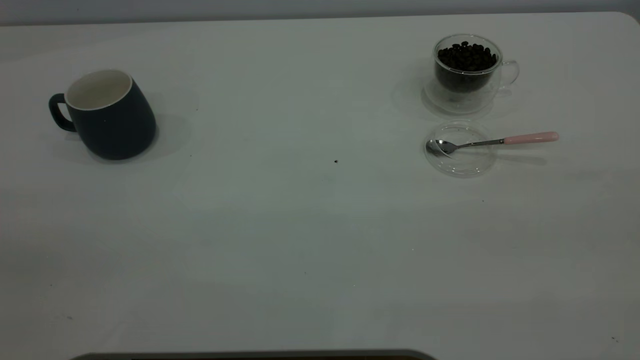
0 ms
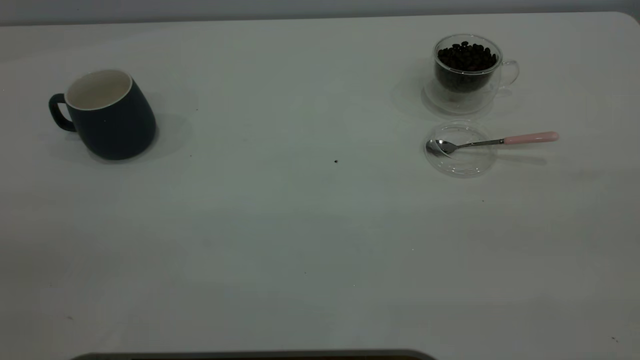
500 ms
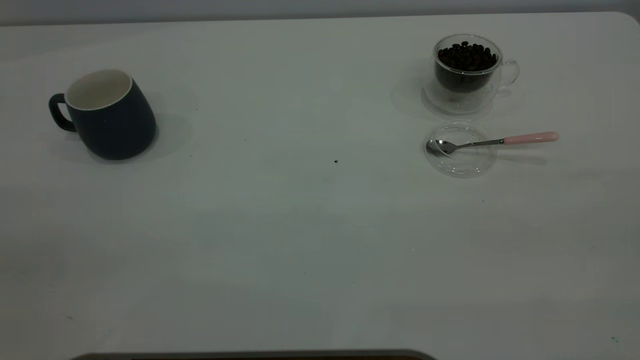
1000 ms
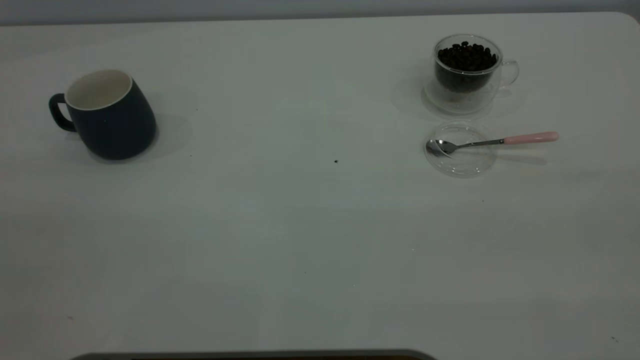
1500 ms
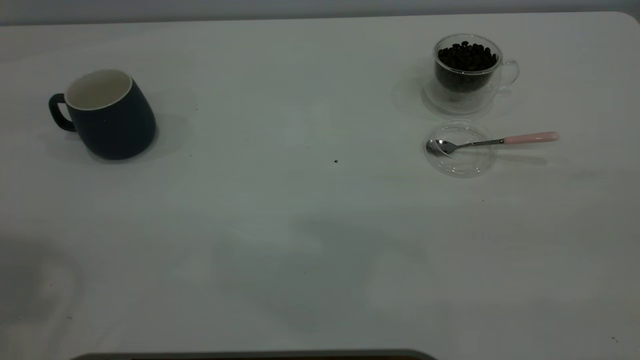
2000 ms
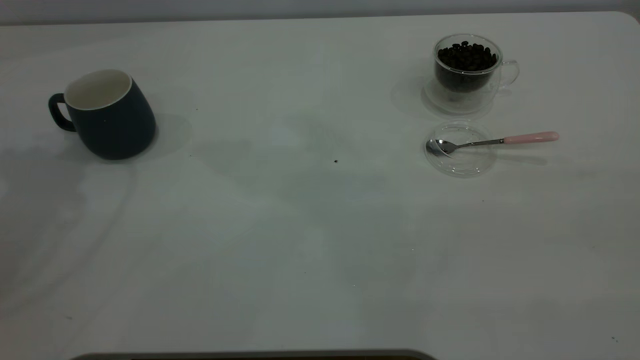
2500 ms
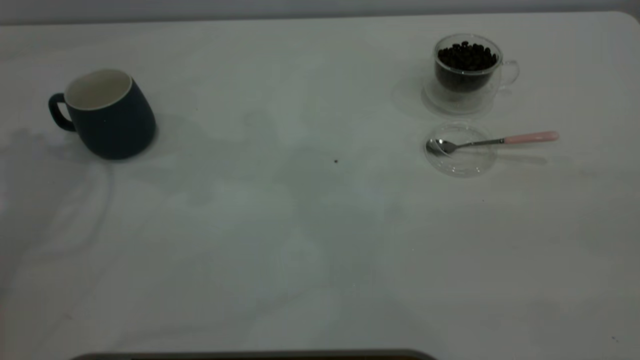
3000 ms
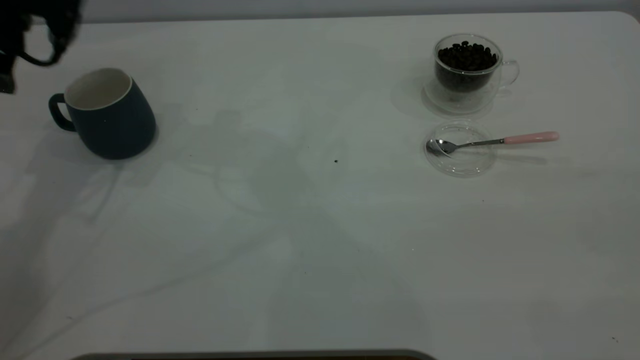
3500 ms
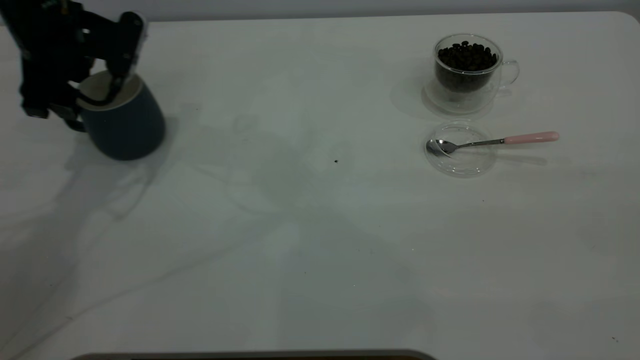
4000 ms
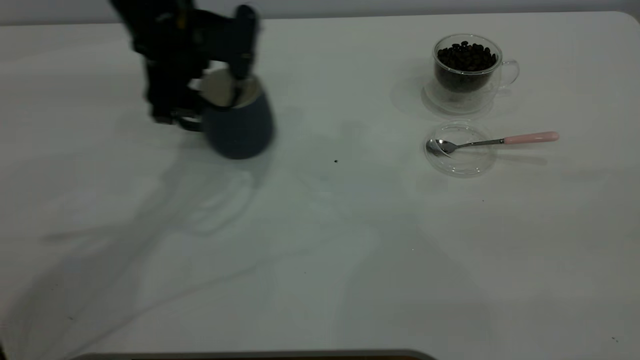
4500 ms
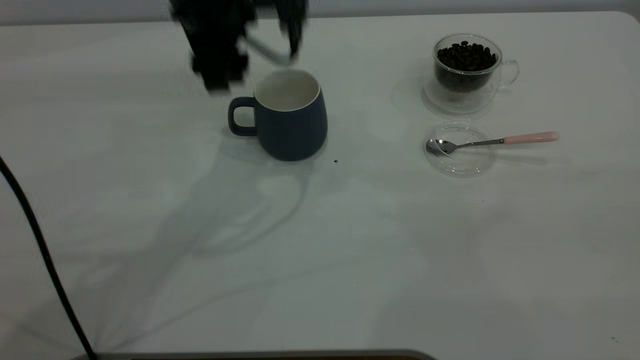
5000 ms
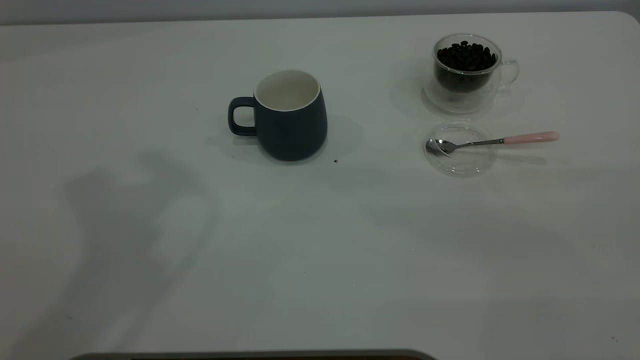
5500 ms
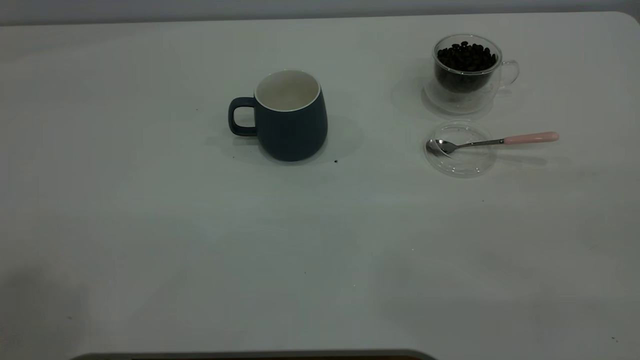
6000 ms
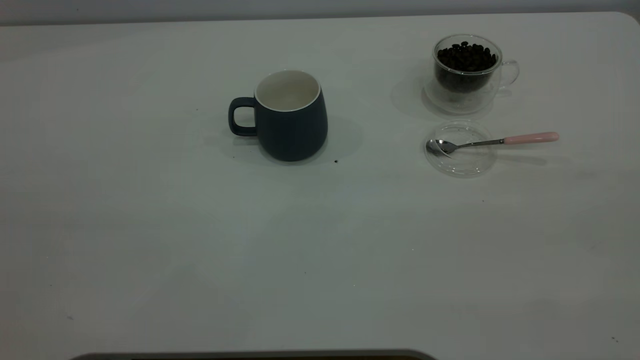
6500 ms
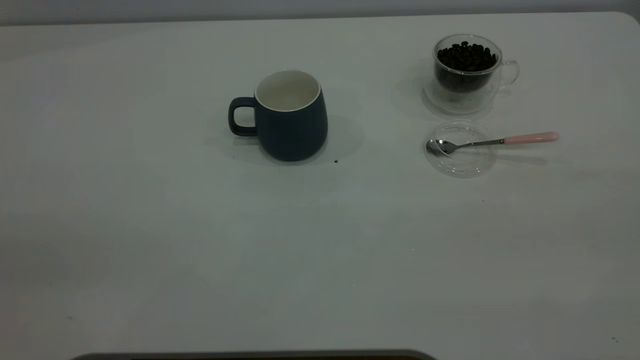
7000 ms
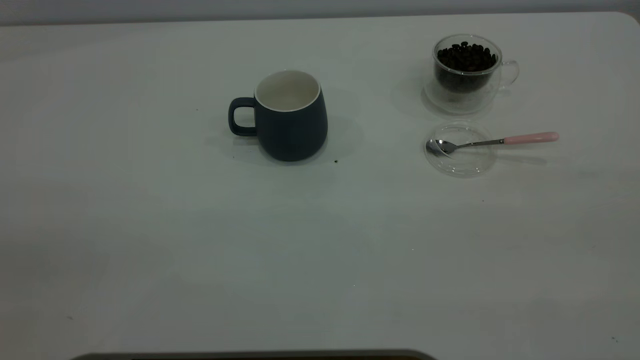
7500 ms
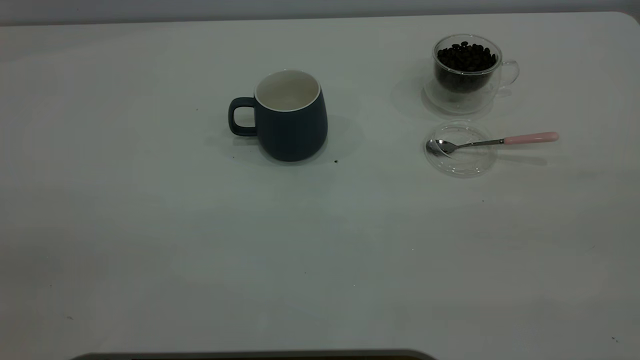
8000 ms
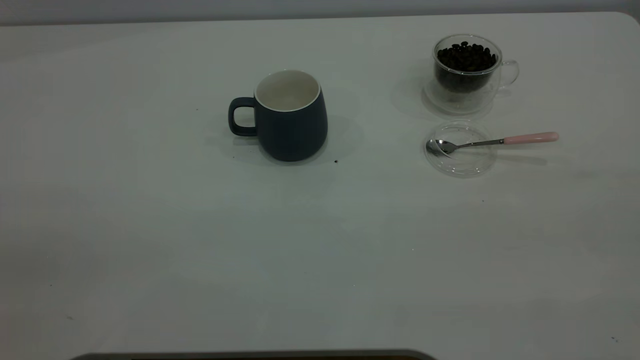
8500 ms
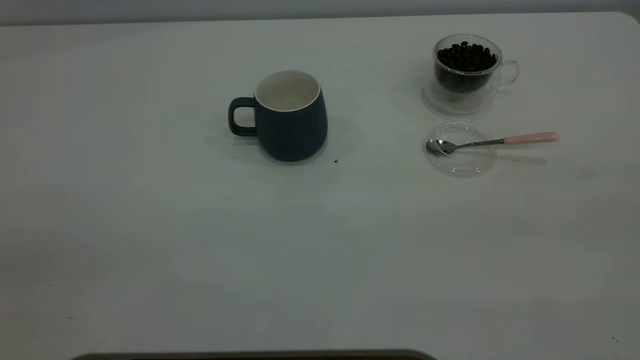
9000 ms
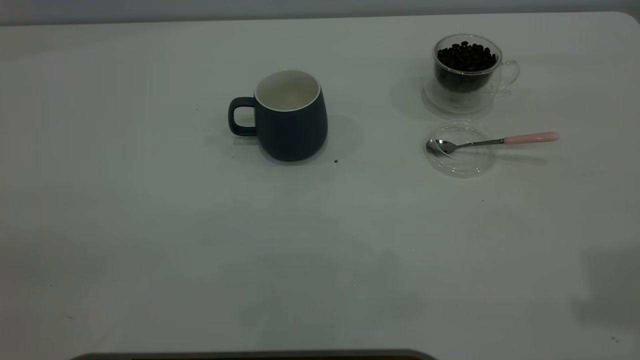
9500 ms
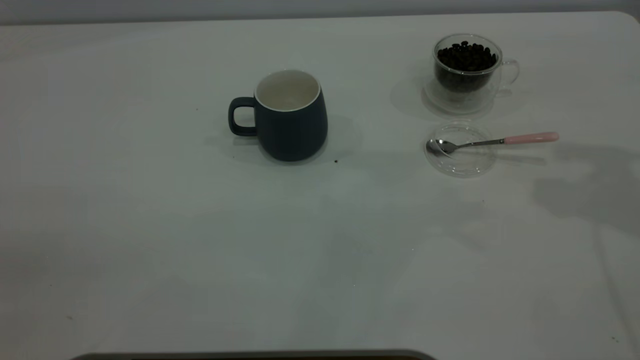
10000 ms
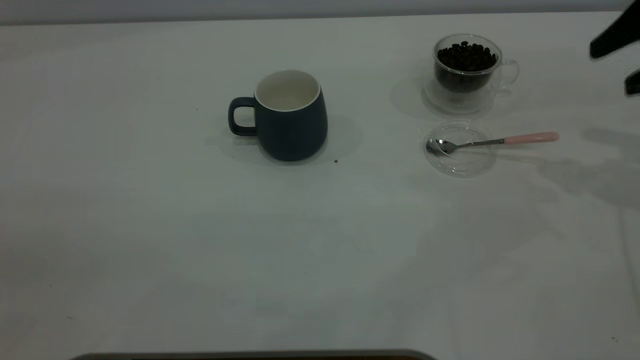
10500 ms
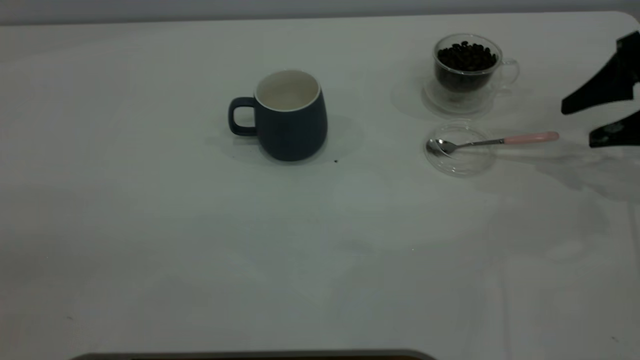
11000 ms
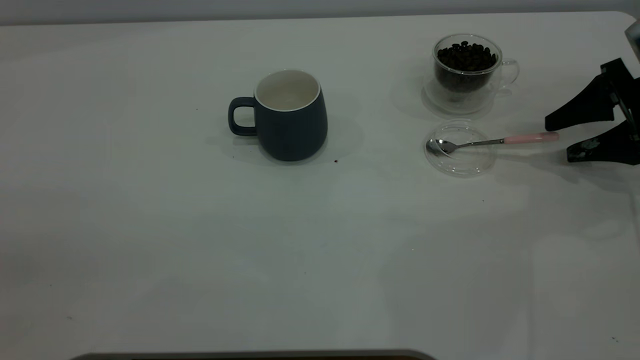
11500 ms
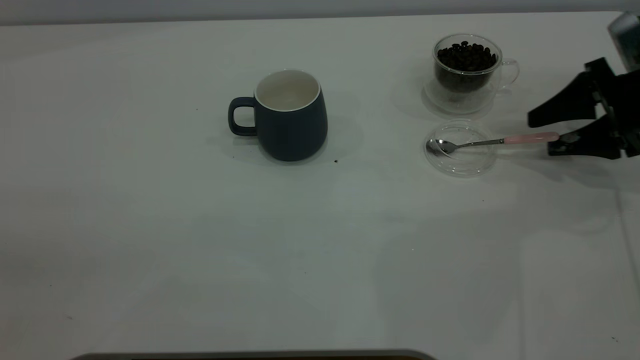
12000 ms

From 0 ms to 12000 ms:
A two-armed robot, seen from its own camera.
Task of the whole recording: the left gripper place the grey cup in the center of the table, the right gripper take the pink spoon from the cup lid and scoop out the coffee beans from the coffee cup and put them into the grey cup, the right gripper put the spoon back into the cup lid.
Step, from 0 ms to 4500 ms: Move the cup to the center of view.
From 2000 ms to 4000 ms: The left gripper is displaced downward and forward by about 35 cm.
From 4000 ms to 6000 ms: The left gripper travels upward and backward by about 50 cm.
From 10000 ms to 12000 ms: The right gripper travels downward by about 25 cm.

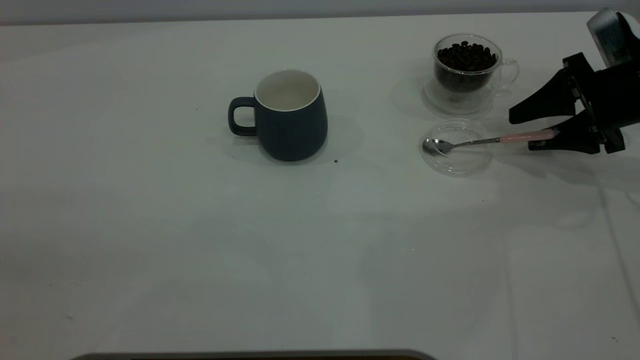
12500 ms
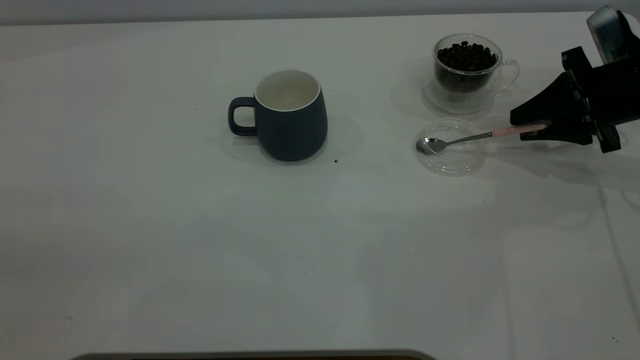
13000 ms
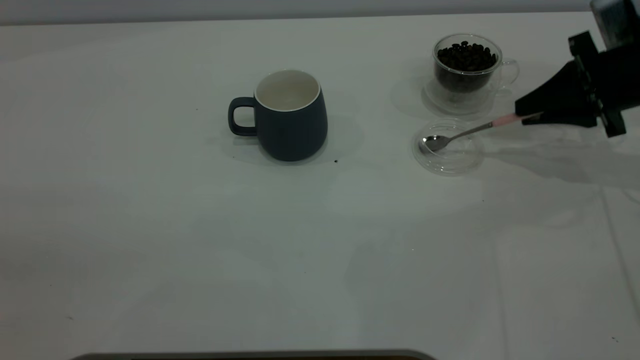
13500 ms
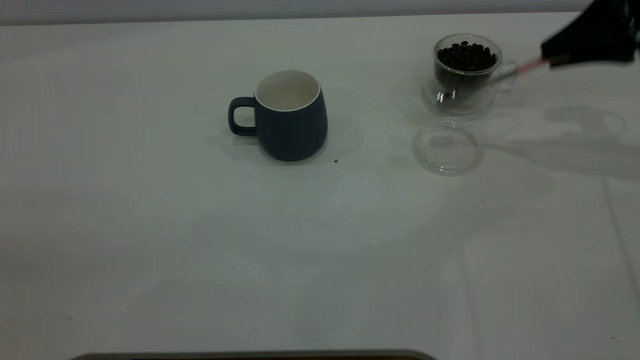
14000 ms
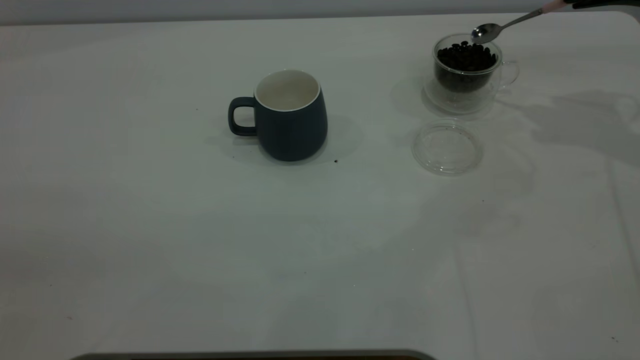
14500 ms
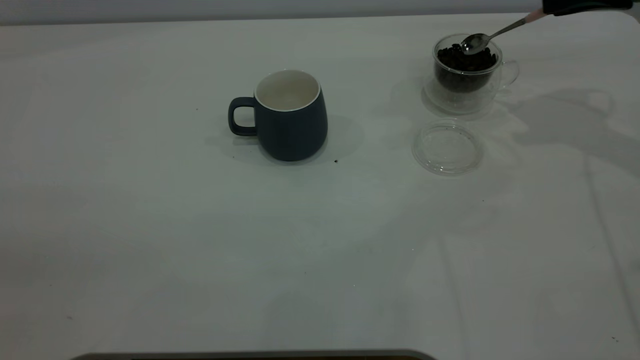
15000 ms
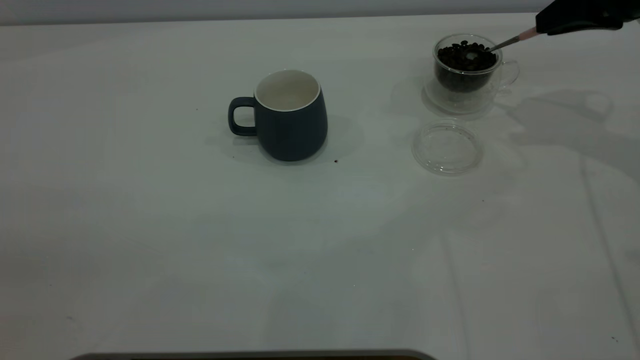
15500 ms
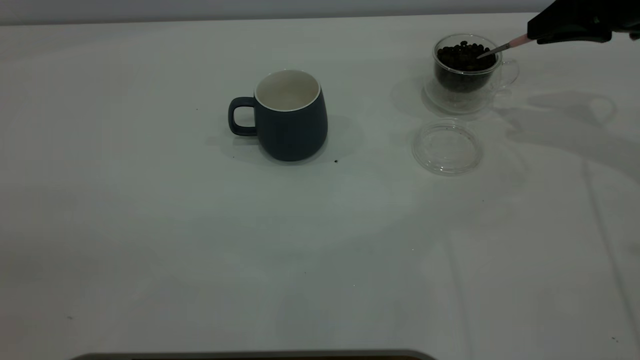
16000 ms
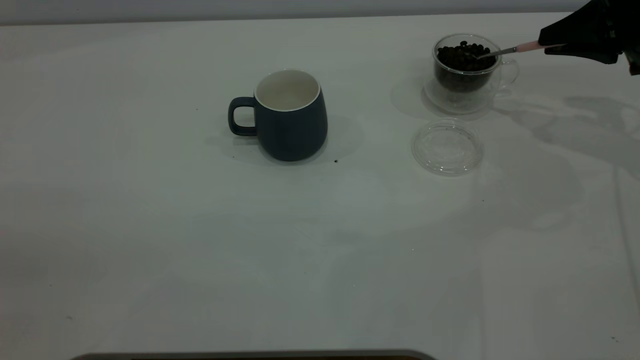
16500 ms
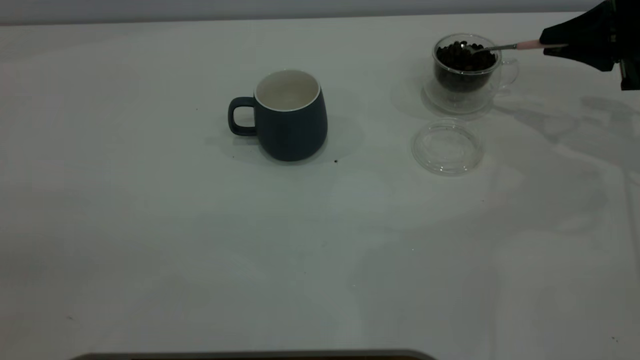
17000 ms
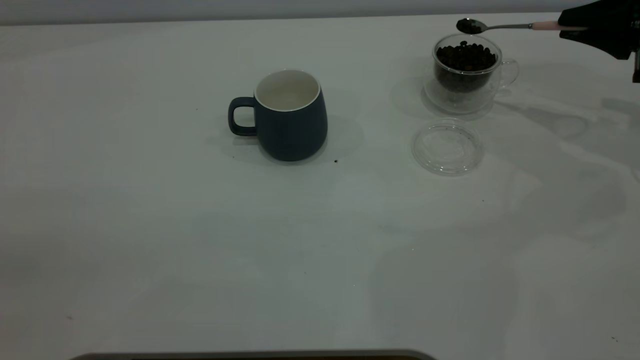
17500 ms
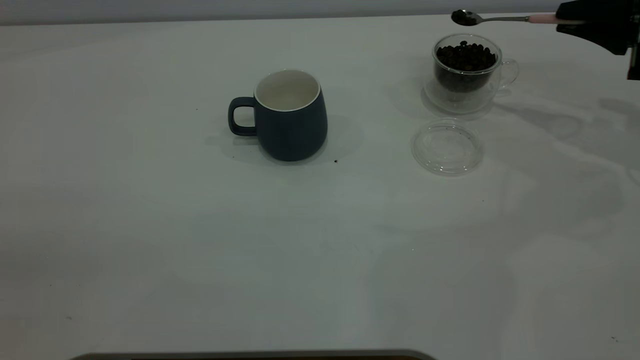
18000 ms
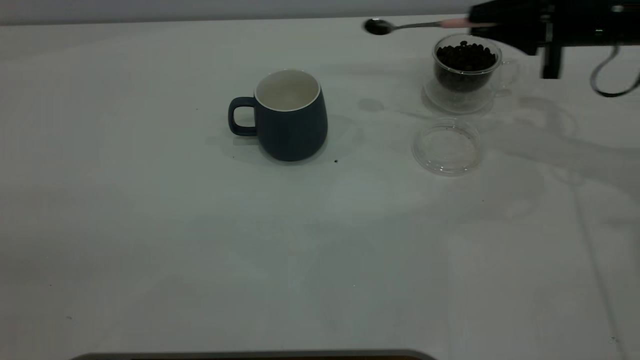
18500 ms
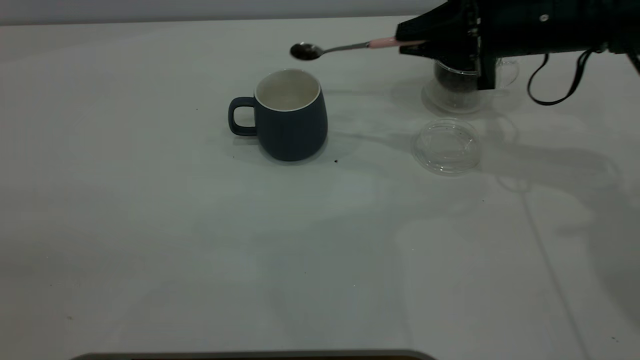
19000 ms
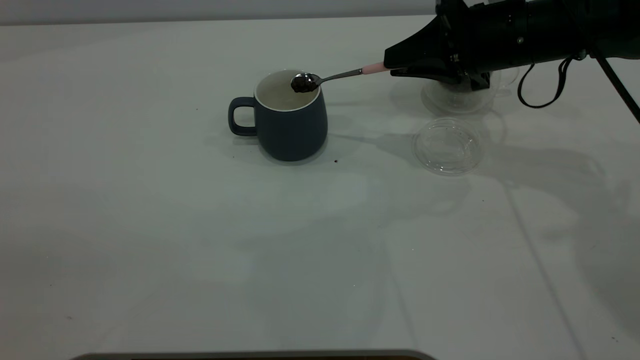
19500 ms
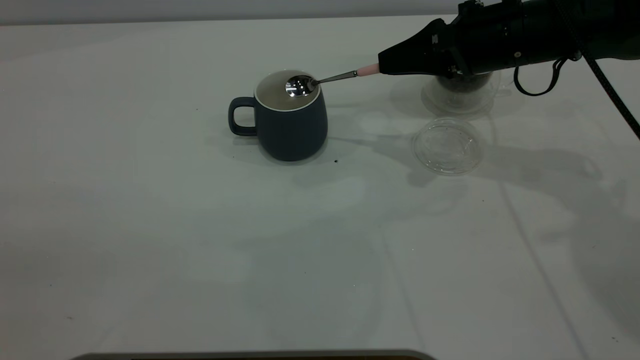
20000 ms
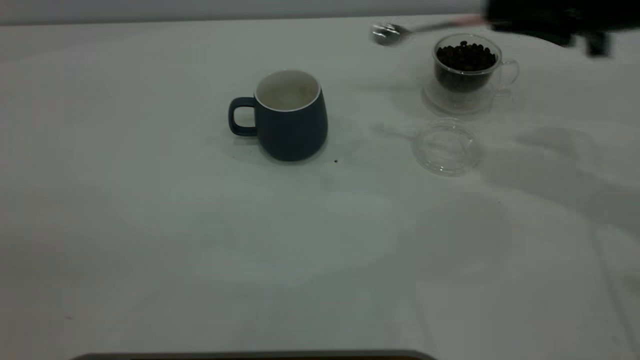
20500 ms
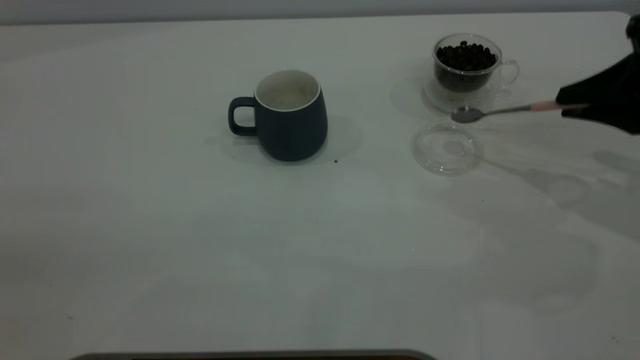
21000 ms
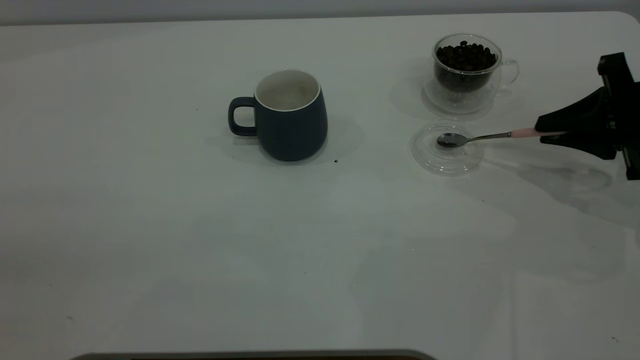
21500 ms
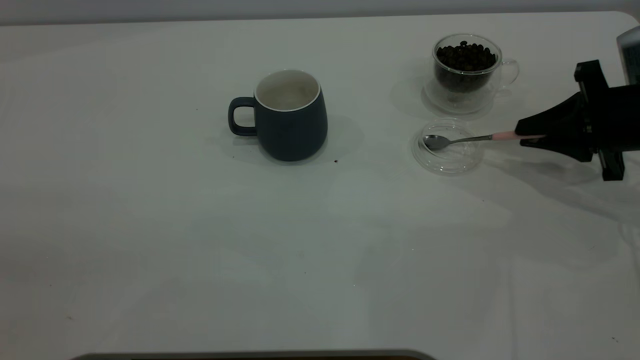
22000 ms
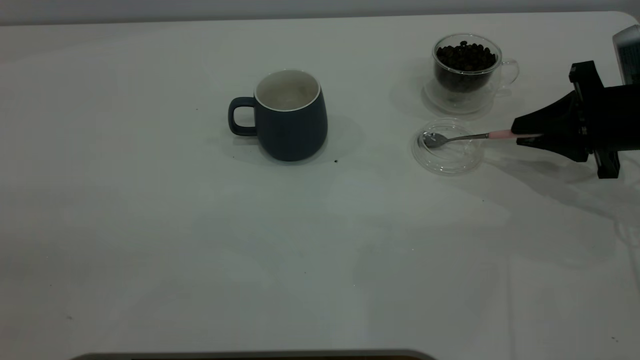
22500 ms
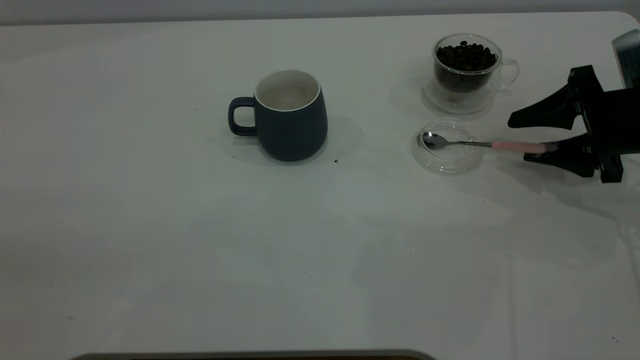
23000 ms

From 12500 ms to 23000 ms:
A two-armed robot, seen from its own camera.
Task of the whole recording: the left gripper place the grey cup in the center of the table, the right gripper take the pink spoon from the cup lid and scoop out the coffee beans from the coffee cup and put them into the grey cup, the right gripper put the spoon back into the cup lid.
Step, from 14000 ms to 20000 ms: Scoop a spoonful of beans into the cup.
From 12500 ms to 14500 ms: The right gripper heads upward, covering about 15 cm, and closes its fingers.
From 14500 ms to 16500 ms: The right gripper goes approximately 5 cm downward.
From 16500 ms to 19000 ms: The right gripper travels to the left by some 15 cm.
From 19000 ms to 21000 ms: The right gripper moves to the right and backward, about 15 cm.
From 21000 ms to 23000 ms: The right gripper moves downward, about 5 cm, and opens its fingers.
